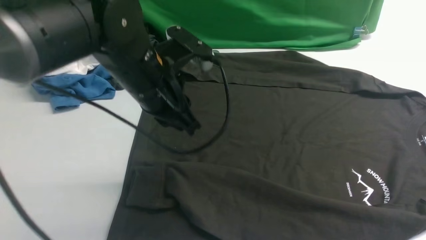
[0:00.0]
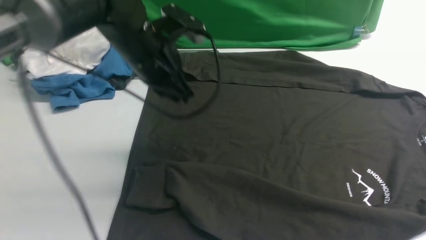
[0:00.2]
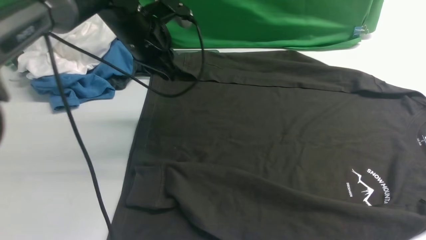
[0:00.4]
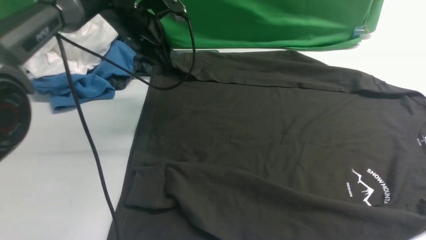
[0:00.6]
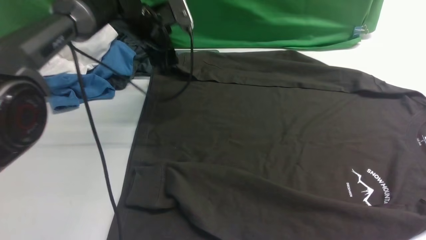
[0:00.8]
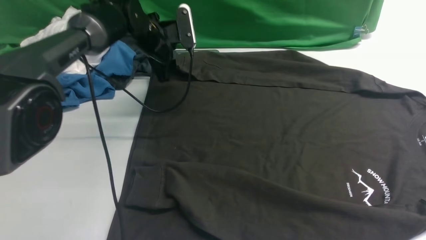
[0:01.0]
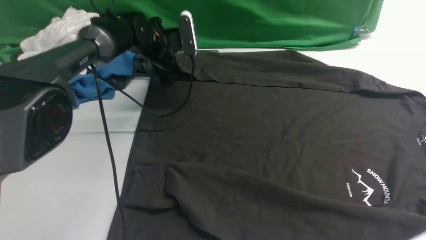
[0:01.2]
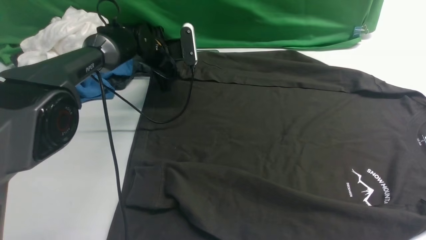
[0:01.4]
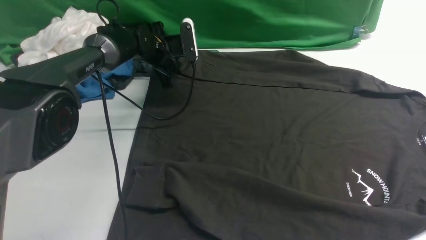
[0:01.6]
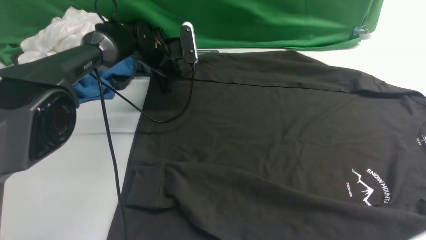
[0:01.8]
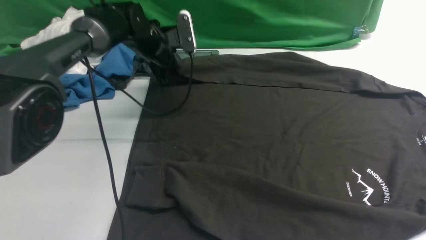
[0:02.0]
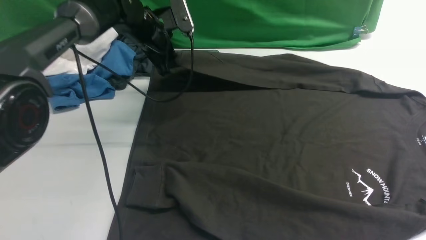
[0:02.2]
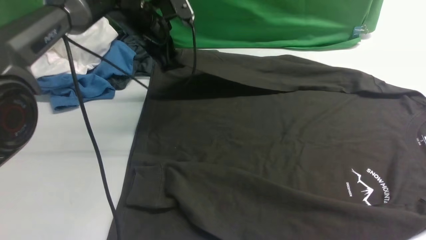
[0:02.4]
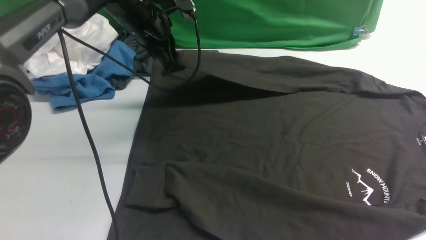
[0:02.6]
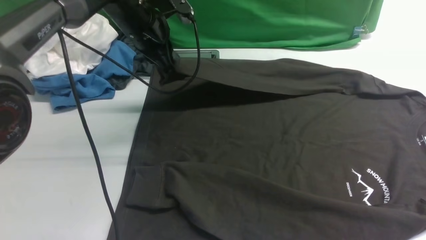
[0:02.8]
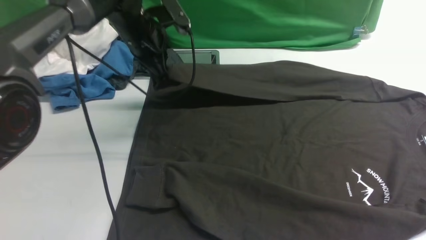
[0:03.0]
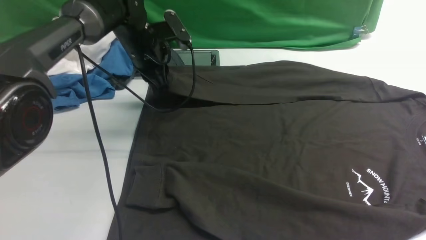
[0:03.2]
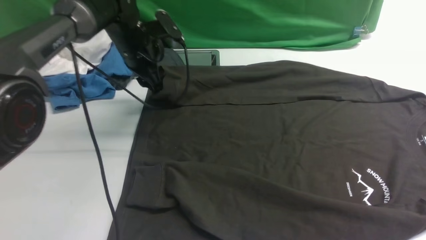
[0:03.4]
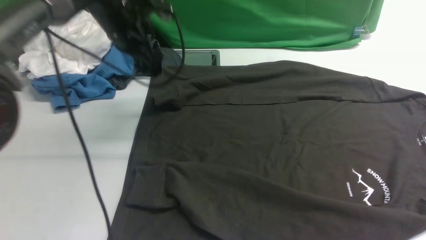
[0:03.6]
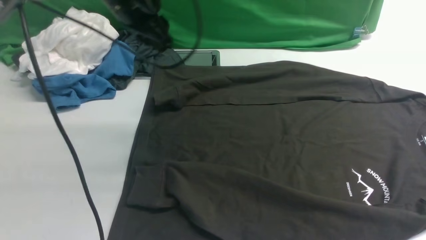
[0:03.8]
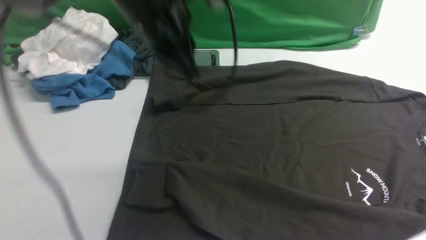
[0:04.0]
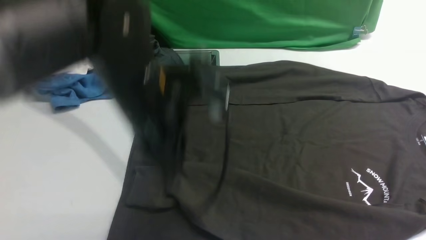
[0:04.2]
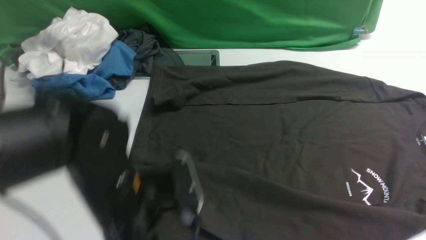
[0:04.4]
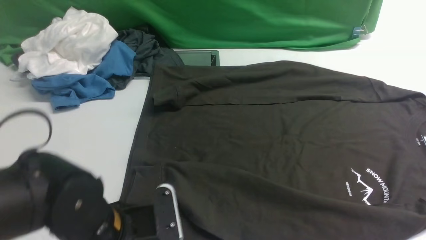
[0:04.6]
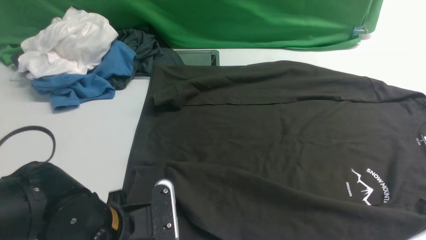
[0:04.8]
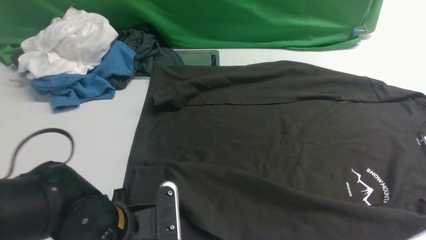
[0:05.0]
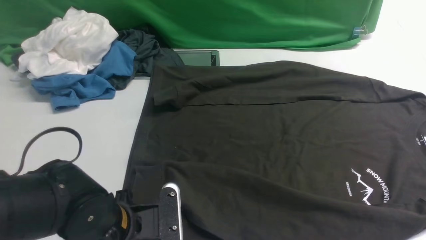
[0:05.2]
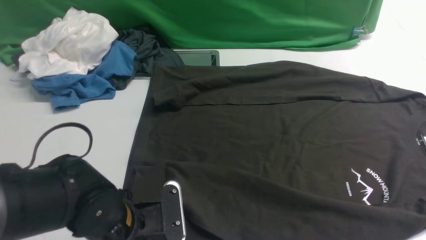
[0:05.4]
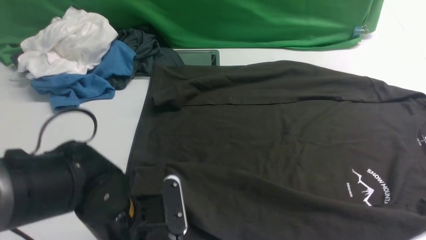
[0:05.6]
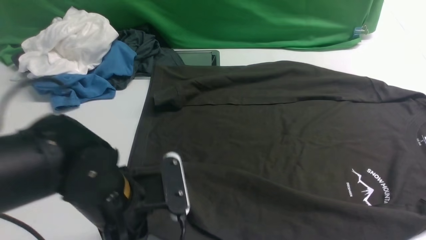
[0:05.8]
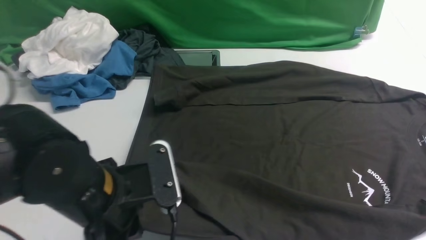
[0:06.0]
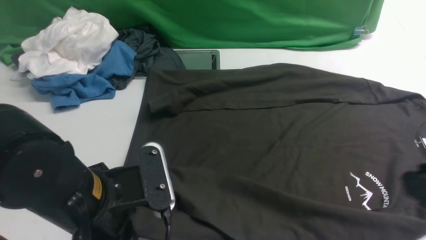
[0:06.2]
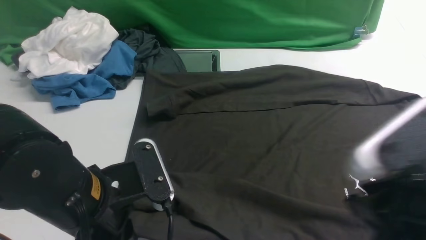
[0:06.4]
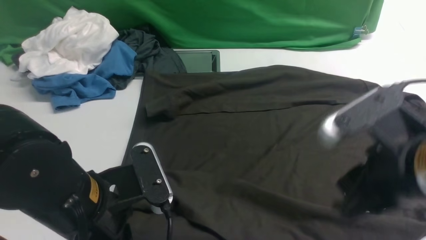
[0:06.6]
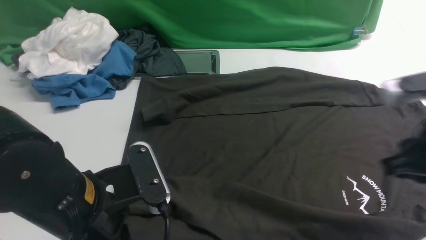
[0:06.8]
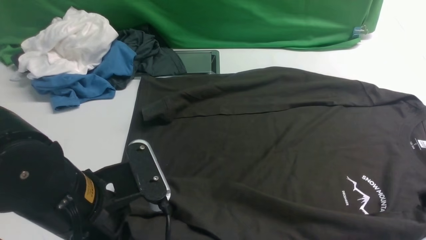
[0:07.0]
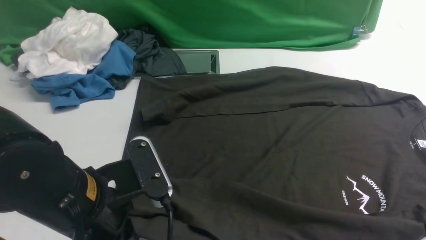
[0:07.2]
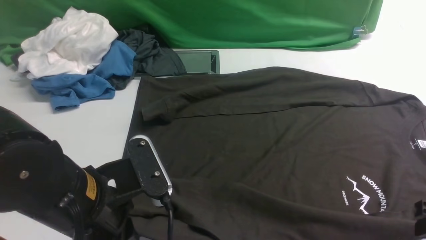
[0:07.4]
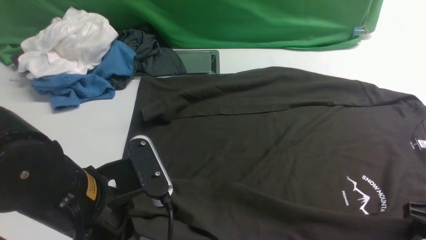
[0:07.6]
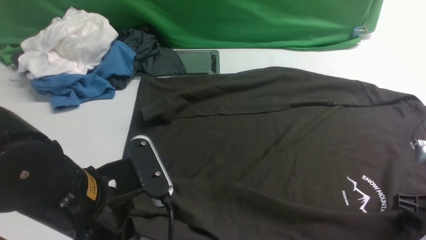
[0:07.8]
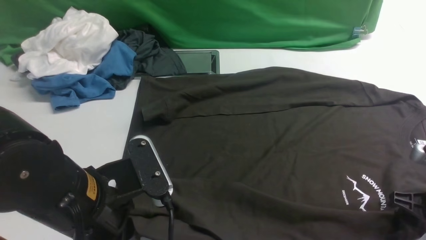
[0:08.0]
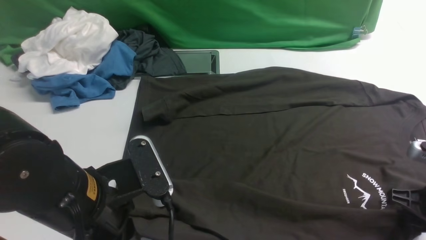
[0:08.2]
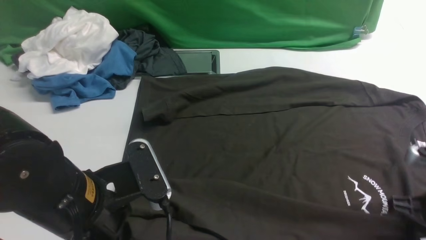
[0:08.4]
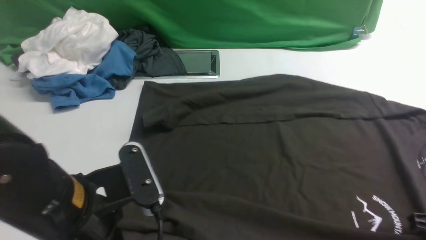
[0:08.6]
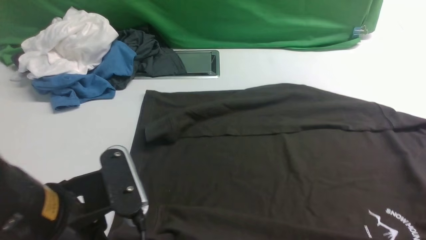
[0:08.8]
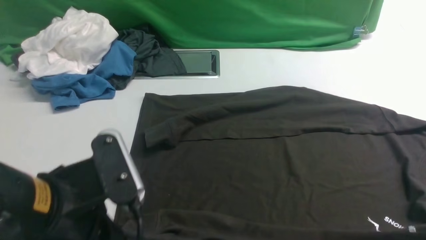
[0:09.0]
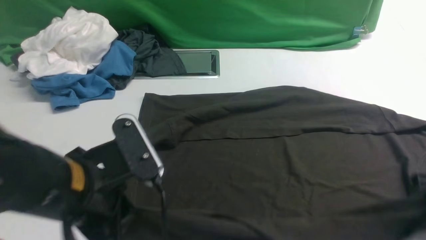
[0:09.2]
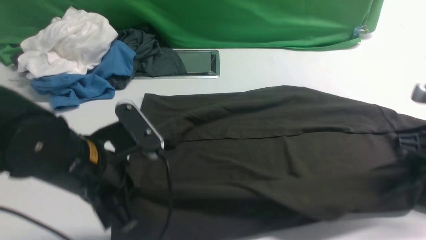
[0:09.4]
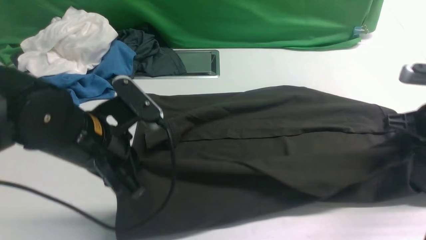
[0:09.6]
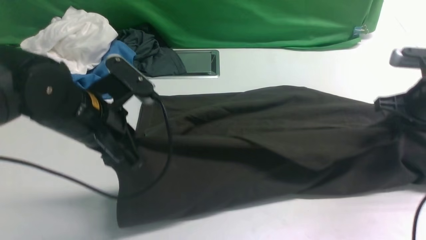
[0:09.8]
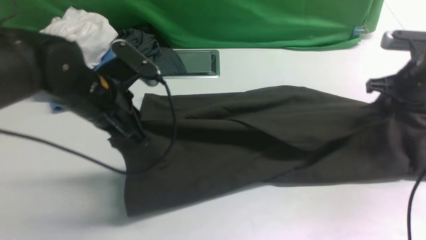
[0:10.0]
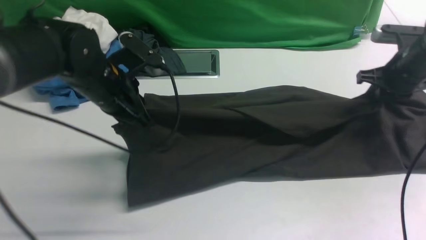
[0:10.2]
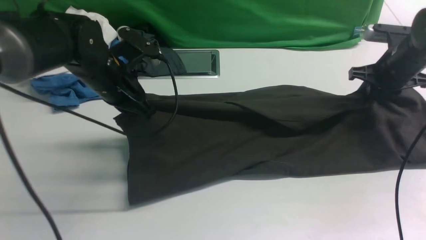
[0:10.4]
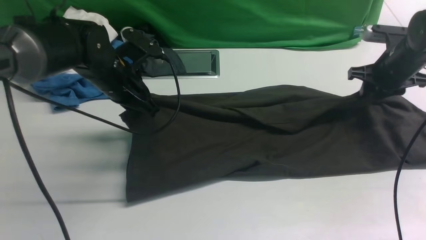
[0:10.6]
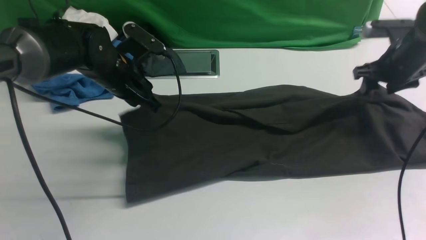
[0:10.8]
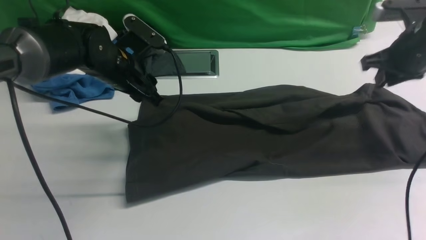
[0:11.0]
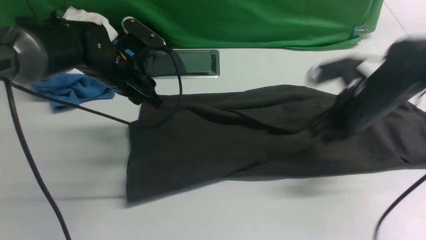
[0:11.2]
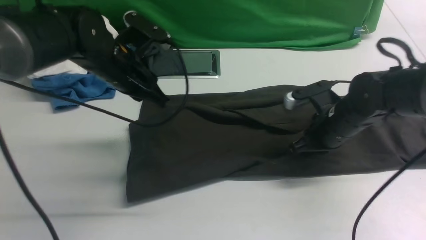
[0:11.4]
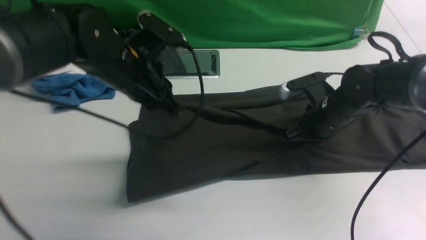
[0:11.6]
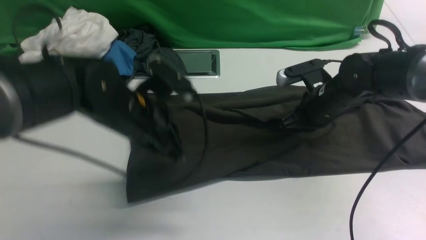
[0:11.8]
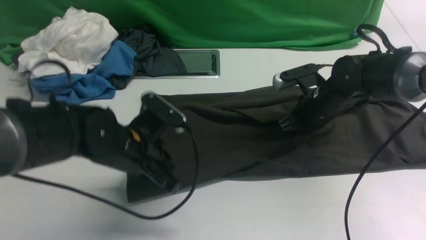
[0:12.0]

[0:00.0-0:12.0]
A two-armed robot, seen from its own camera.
Step, 0:00.0 to 0:01.8: use the left arm to clamp the cuff farthest from it.
Step, 0:02.0 to 0:03.4: use the left arm to drag and drop the cuff onto the cuff closest to the left arm.
Step, 0:03.8 to 0:08.6: use both arms simultaneously to clamp the lower edge of the clothing fabric.
0:00.0 to 0:01.6: The right gripper travels upward by about 5 cm. Meanwhile the left gripper shifts approximately 25 cm forward and downward, and opens, then closes again.
0:01.6 to 0:03.0: The left gripper is displaced upward and backward by approximately 10 cm.
0:03.0 to 0:04.4: The left gripper goes approximately 30 cm backward, and opens its fingers.
0:04.4 to 0:06.0: The left gripper travels downward and back again, some 5 cm each way, and closes up.
0:06.0 to 0:07.6: The right gripper shifts about 20 cm downward and forward, and opens up.
0:07.6 to 0:09.0: The right gripper closes up.
0:09.0 to 0:10.4: Both grippers travel together forward, some 25 cm.
0:10.4 to 0:12.0: The right gripper is displaced to the left by about 15 cm, while the left gripper is displaced backward by approximately 10 cm, and opens and closes again.

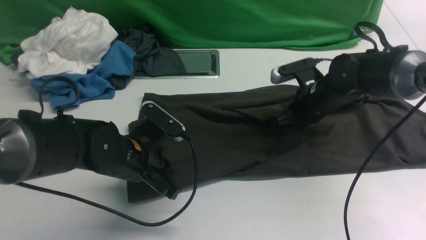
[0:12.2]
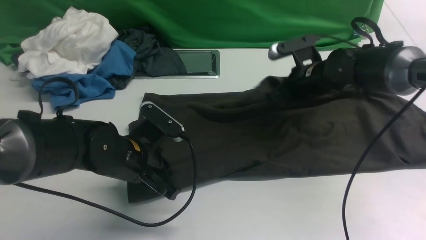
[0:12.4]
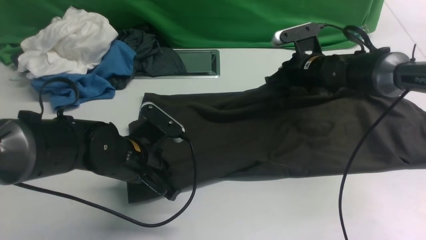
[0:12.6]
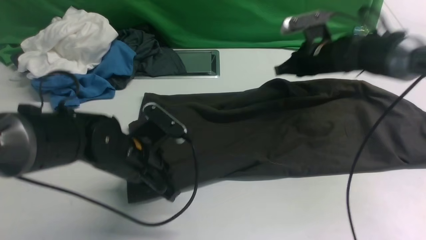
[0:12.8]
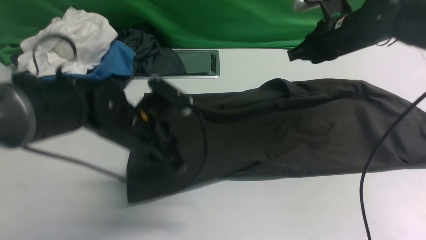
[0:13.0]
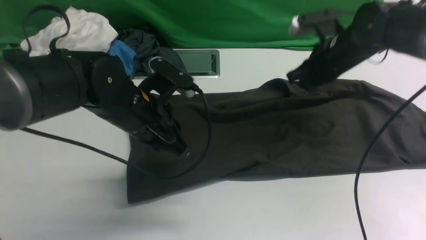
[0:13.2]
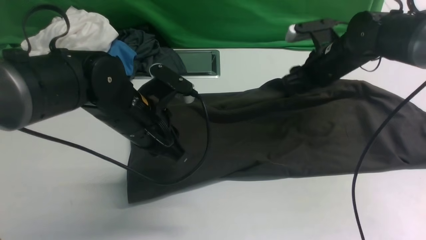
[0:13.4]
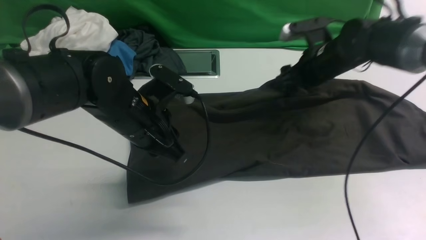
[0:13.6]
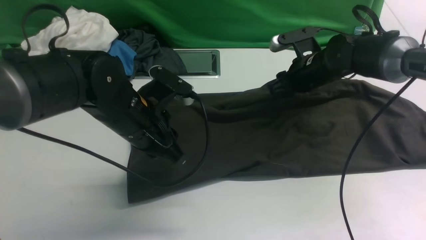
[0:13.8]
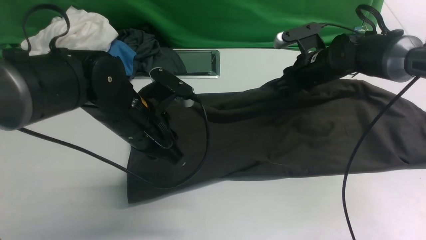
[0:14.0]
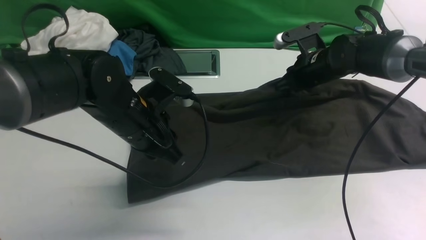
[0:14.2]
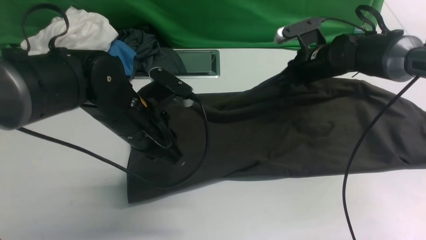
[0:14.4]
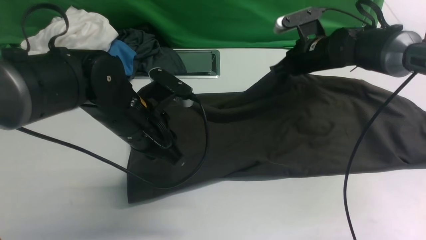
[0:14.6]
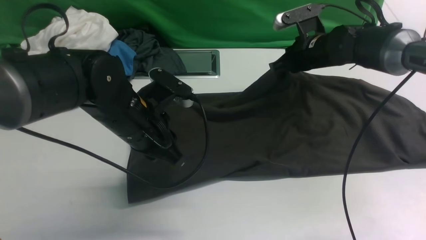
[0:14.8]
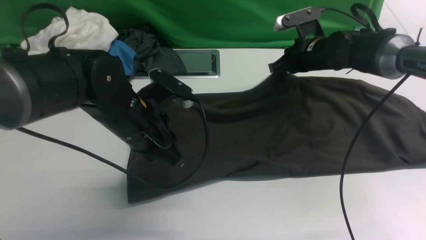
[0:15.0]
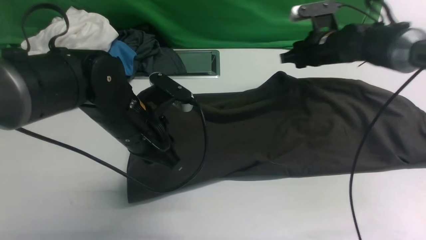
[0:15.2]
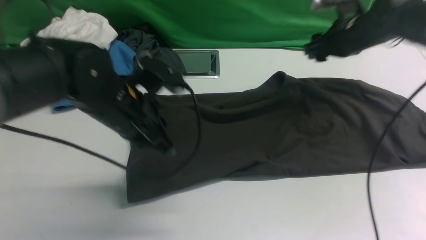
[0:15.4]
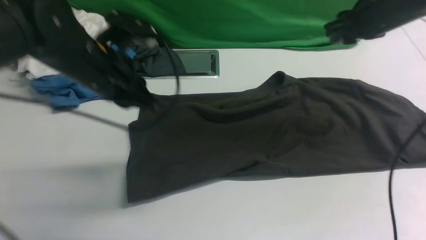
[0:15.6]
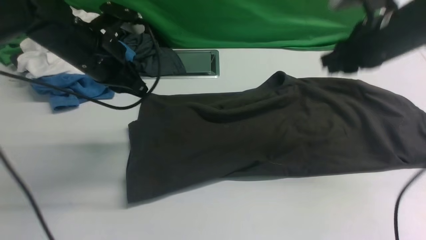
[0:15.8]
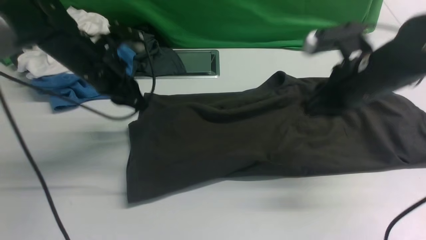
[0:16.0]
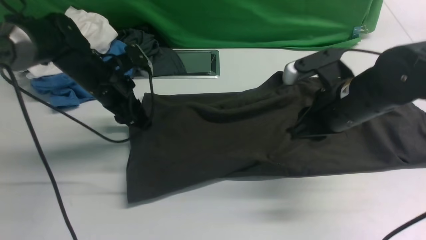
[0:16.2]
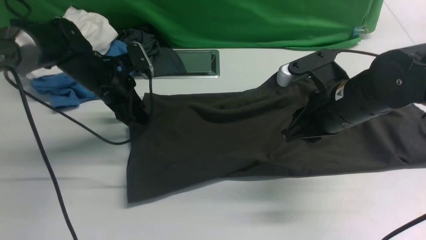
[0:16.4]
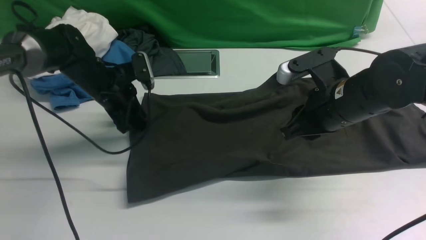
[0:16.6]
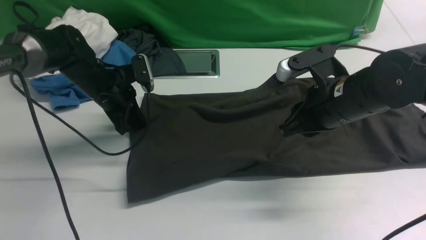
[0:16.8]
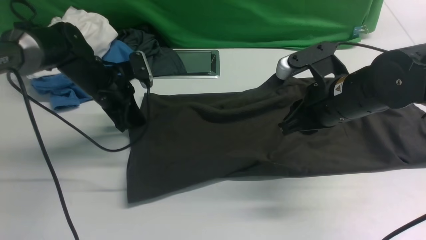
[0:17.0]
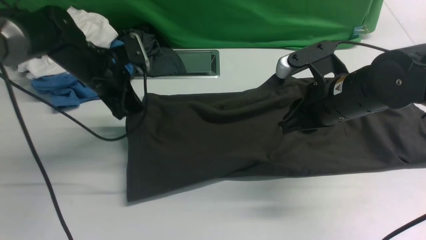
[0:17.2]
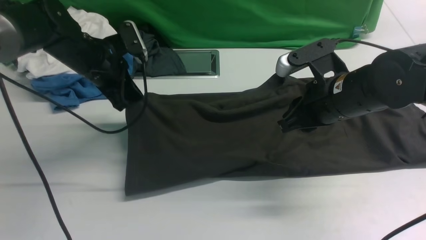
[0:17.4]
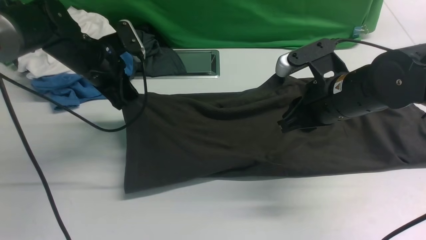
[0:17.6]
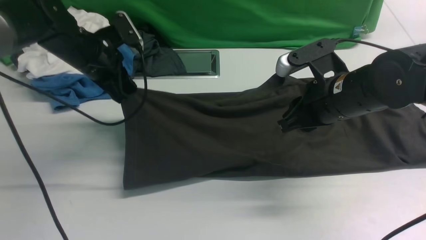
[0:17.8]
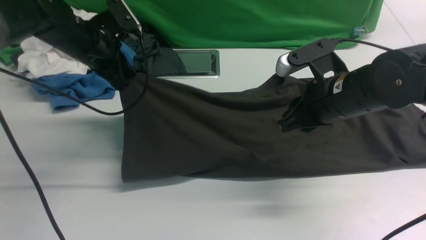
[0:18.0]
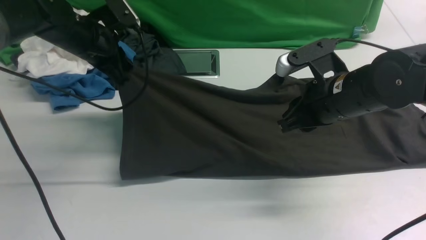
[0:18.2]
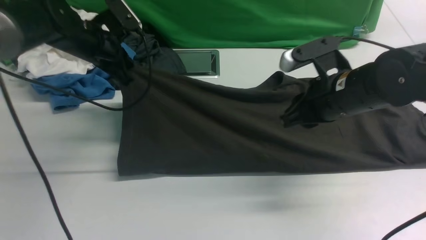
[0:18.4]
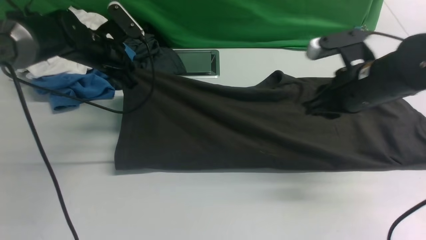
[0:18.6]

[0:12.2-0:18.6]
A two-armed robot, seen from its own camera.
0:12.2 to 0:13.8: The left gripper goes about 5 cm upward; the right gripper opens up.
0:13.8 to 0:15.4: The right gripper moves upward and to the right, some 10 cm, and closes, then reopens.
0:15.4 to 0:17.0: The left gripper travels forward, to the left and downward by about 15 cm, and opens, then closes once more. The right gripper goes roughly 15 cm backward and to the left.
0:17.0 to 0:18.6: The right gripper is displaced to the right by about 5 cm.
